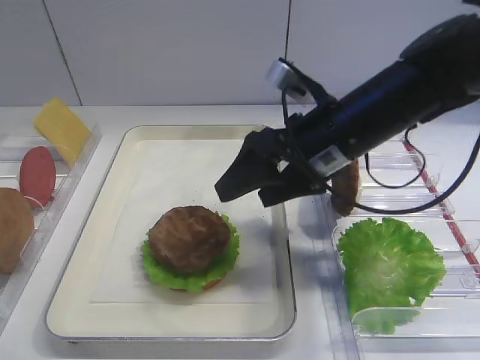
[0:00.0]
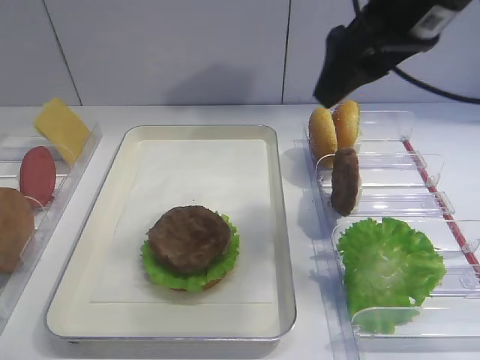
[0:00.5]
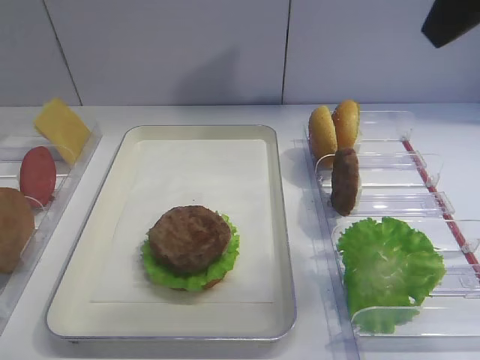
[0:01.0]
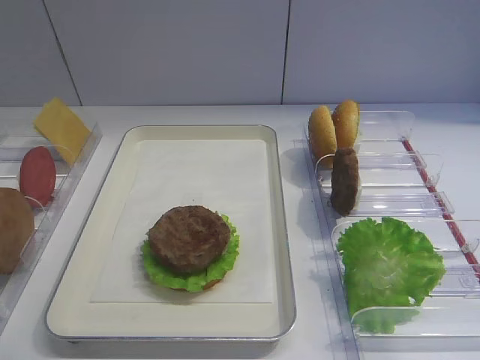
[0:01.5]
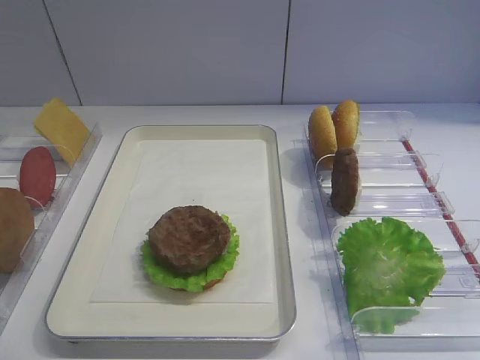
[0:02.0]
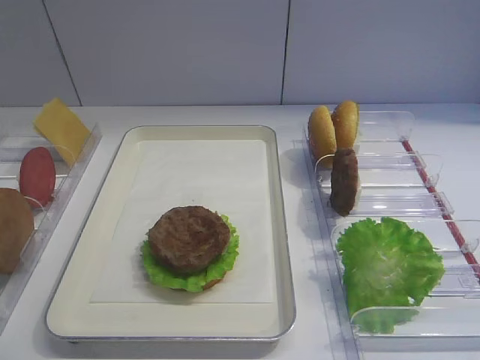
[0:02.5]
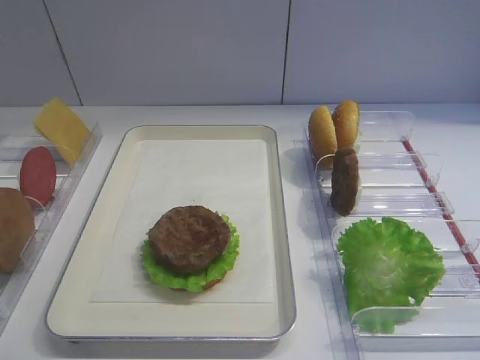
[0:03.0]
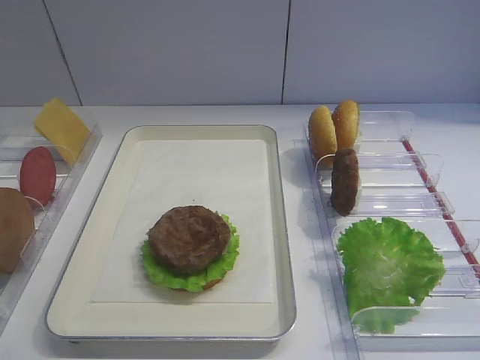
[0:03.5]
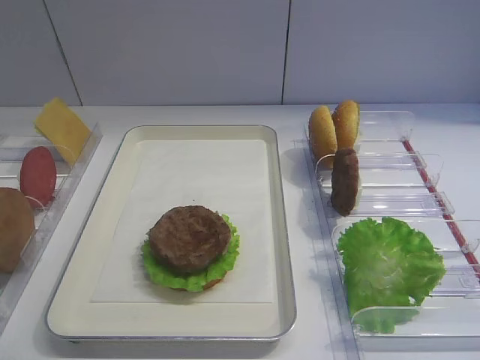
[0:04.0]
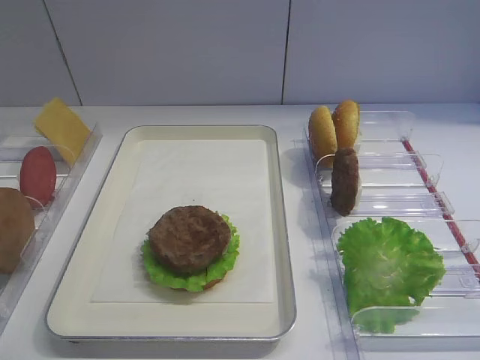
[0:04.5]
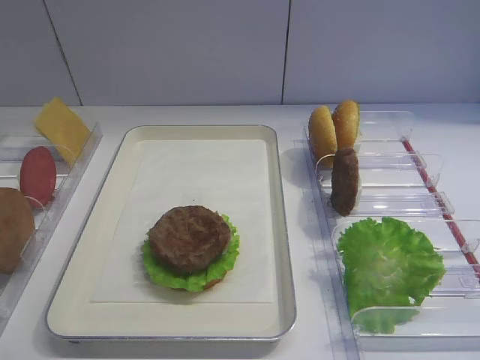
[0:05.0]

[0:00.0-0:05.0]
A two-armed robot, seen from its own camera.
0:00.0 to 0:02.5: The right gripper shifts some 35 cm backward and to the right.
